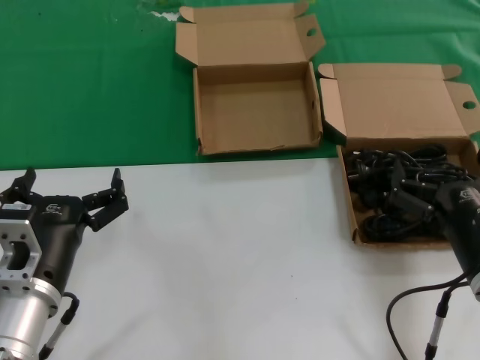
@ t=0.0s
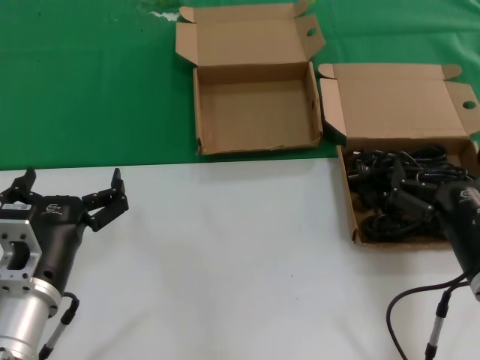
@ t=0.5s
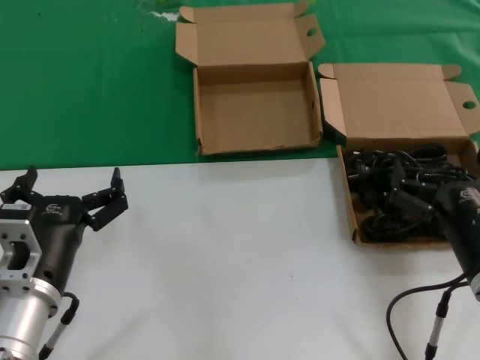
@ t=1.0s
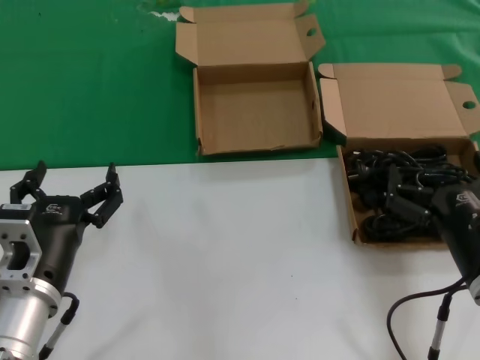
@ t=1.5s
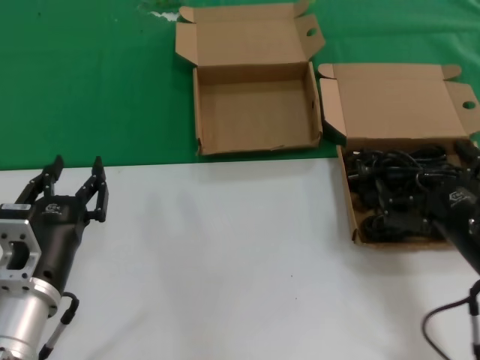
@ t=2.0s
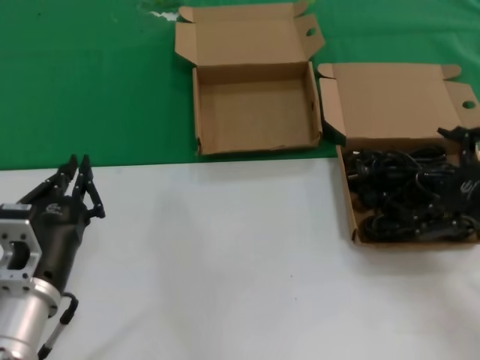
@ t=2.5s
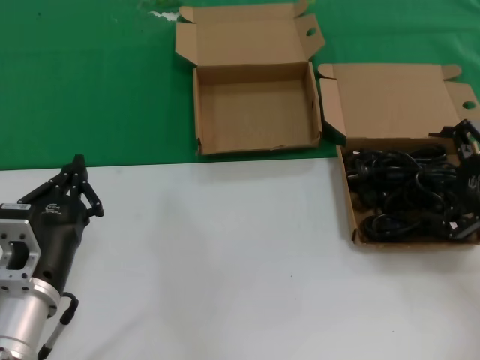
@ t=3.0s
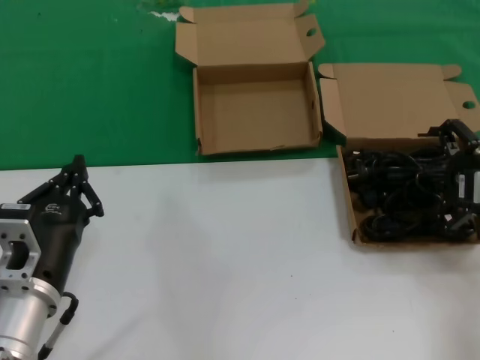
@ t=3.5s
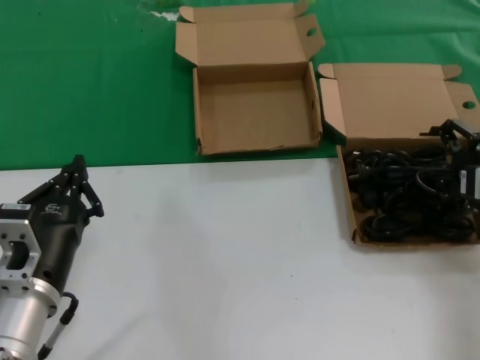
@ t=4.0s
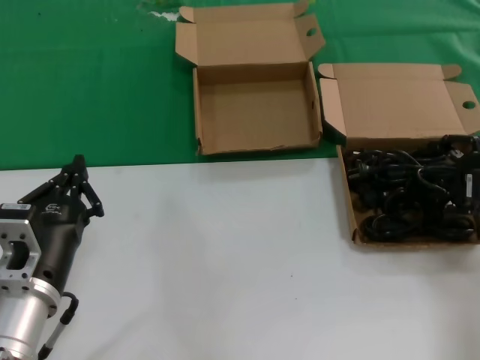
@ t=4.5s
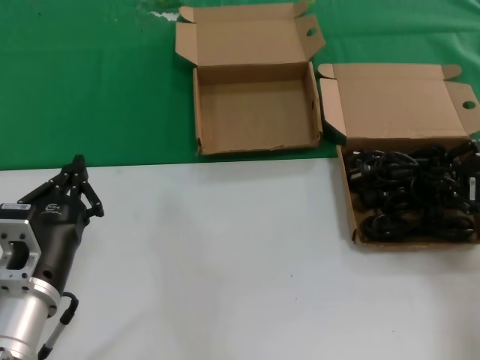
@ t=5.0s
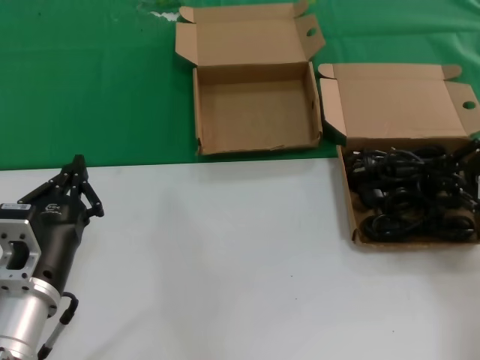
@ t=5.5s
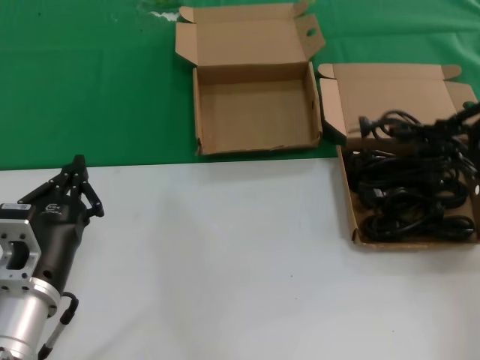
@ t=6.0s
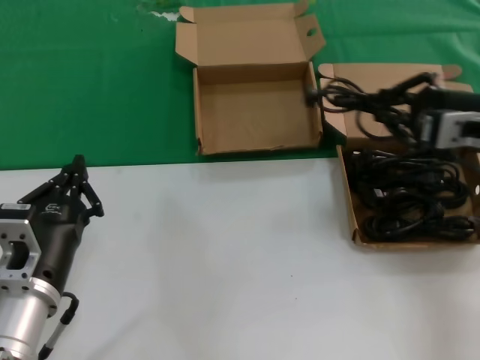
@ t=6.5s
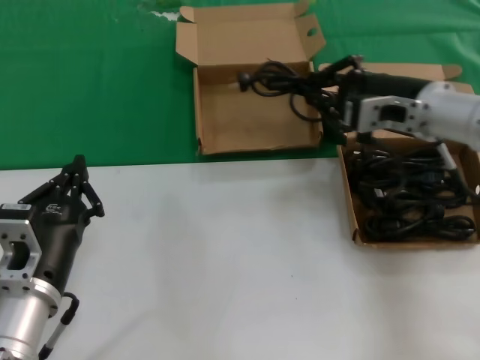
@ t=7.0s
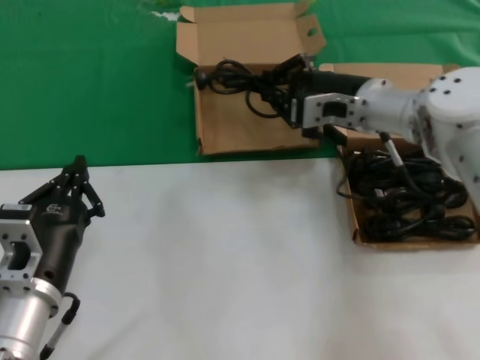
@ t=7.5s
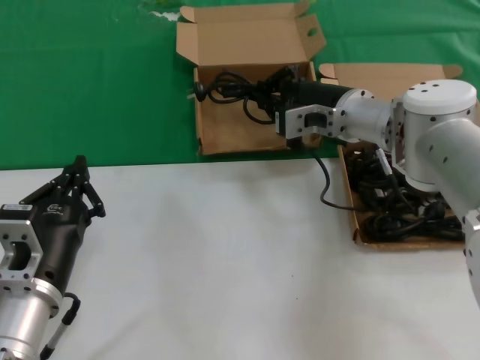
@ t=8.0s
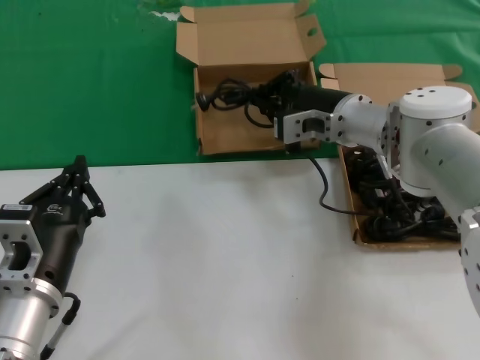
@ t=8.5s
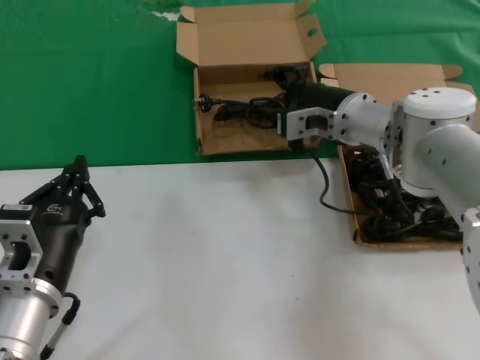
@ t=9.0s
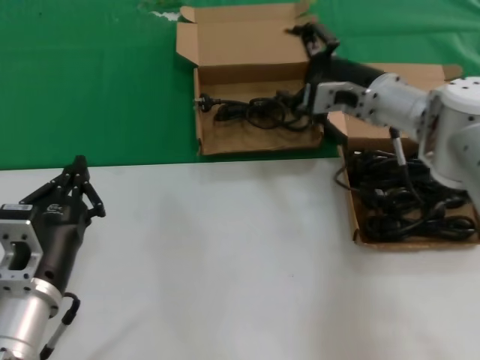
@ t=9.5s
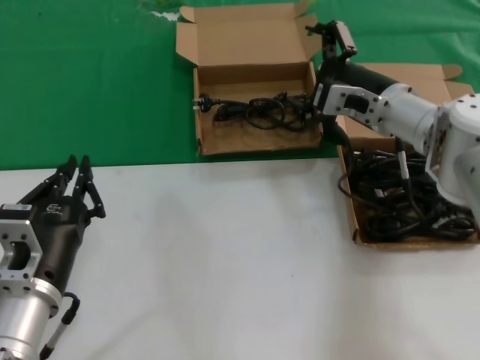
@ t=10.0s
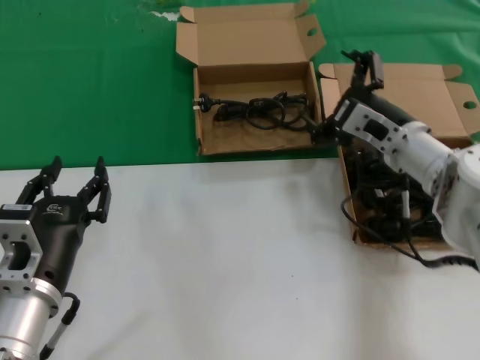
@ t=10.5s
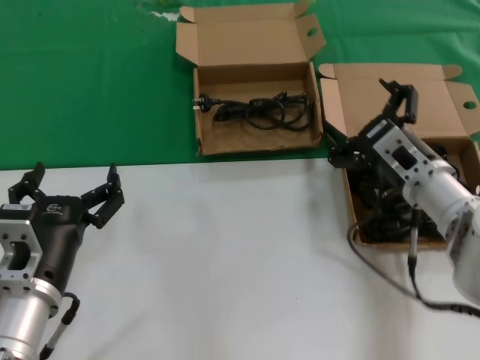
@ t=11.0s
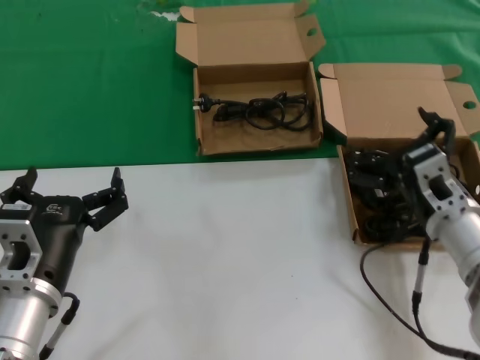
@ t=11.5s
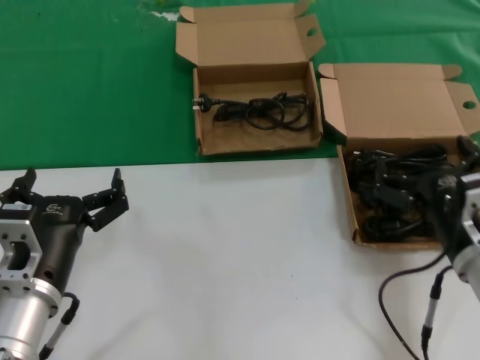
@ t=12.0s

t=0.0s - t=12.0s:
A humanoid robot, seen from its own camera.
Task of the whole recording: take the parts from the box containing them and put them into an empty box.
Step, t=0.0s - t=5.0s: Grasp the data cable.
Step, t=5.5s - t=8.5s: Place the data cable in the another box.
t=0.0s - t=2.0s: The hands make only small movements.
t=2.0s - t=4.0s: The right hand heads forward, to the right and upward, covering approximately 20 cm.
t=4.0s - t=6.0s: The right hand is displaced upward by approximately 5 cm.
t=6.0s - t=8.0s: The right hand heads to the left and forward, covering approximately 25 cm.
t=8.0s - t=10.0s: The hands move only a little.
t=10.0s - t=12.0s: The right hand shifts roughly 25 cm backward and downward.

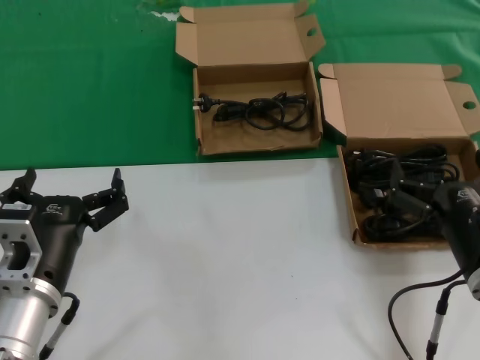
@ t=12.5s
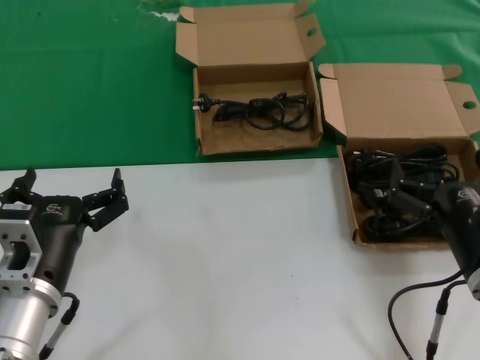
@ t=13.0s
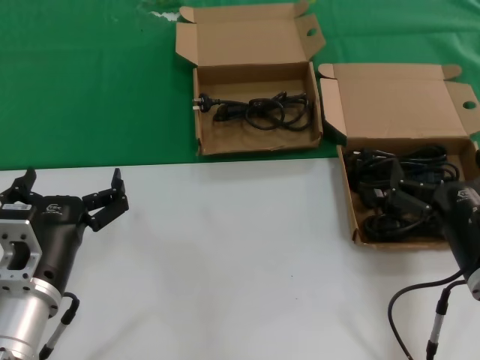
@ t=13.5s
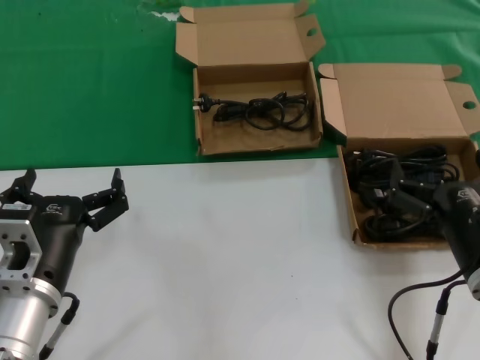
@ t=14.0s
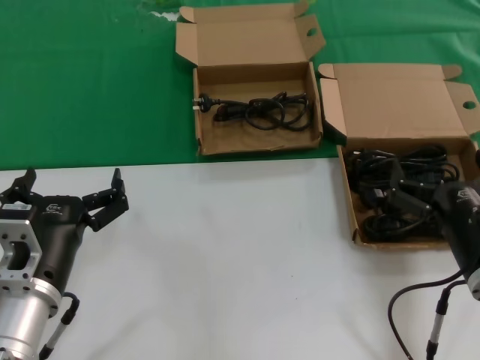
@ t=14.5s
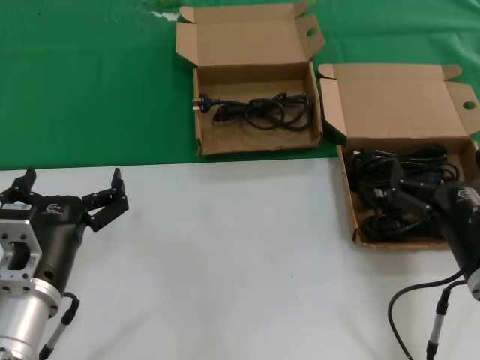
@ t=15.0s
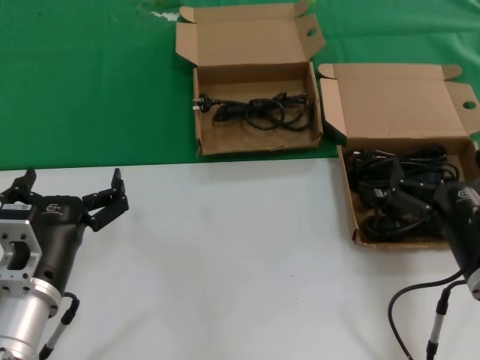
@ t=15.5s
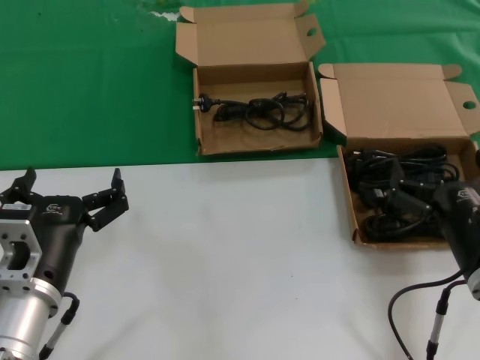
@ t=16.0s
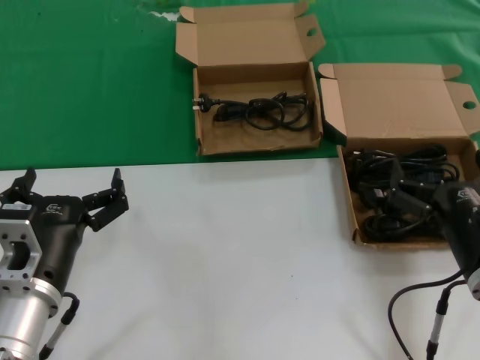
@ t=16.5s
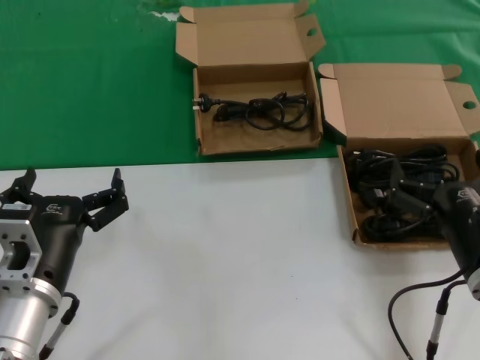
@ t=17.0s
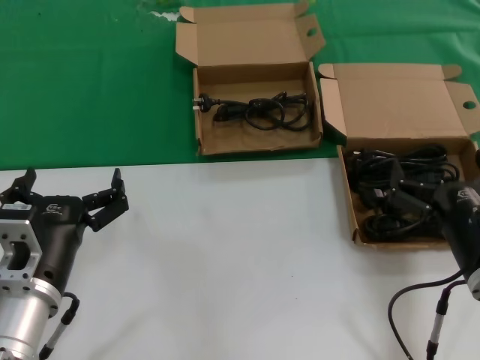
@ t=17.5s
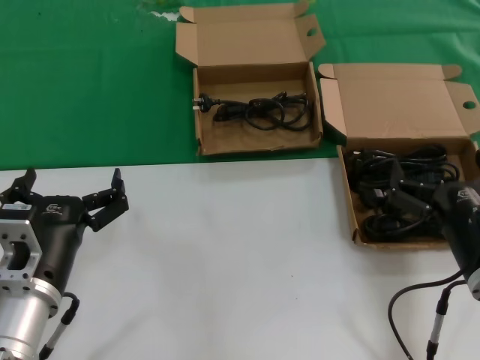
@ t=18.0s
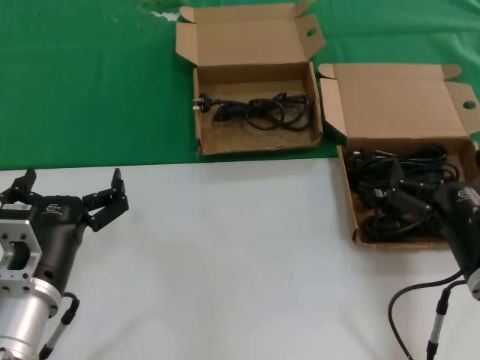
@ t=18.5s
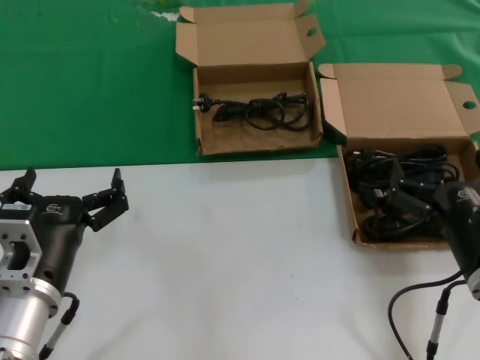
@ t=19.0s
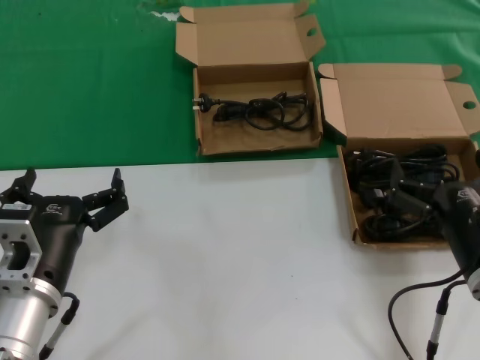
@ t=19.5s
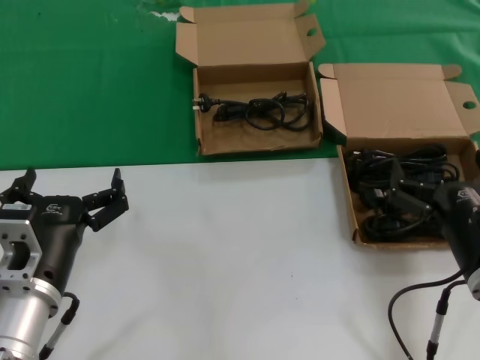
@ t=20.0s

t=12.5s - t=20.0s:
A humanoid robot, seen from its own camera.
Task of the whole recording: take the parts from the box containing them and put them into an empty box.
t=12.5s - t=20.0s: The two hands keep their place.
